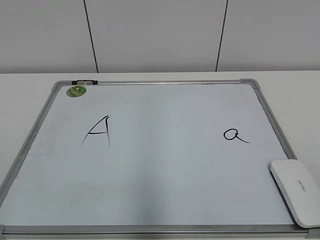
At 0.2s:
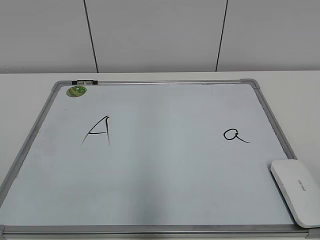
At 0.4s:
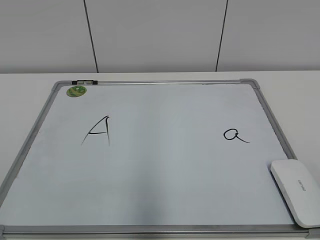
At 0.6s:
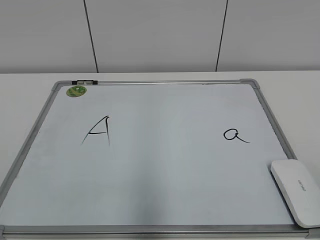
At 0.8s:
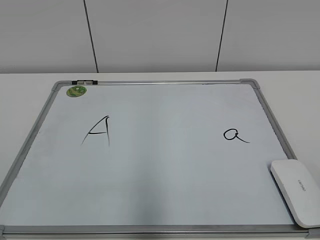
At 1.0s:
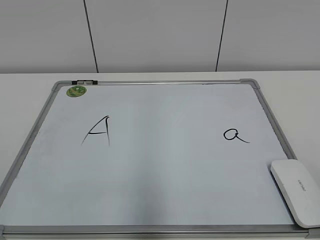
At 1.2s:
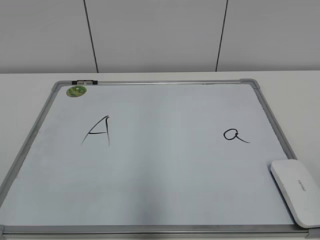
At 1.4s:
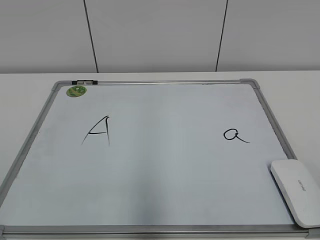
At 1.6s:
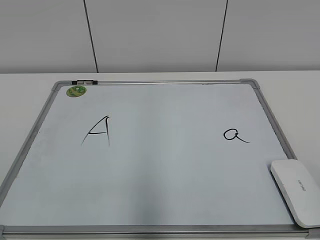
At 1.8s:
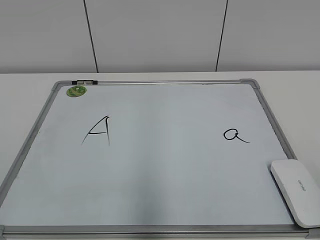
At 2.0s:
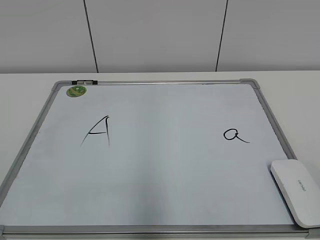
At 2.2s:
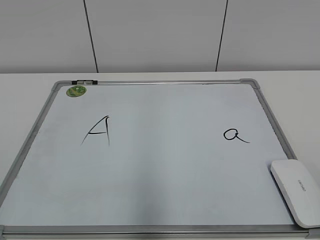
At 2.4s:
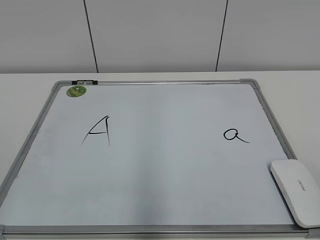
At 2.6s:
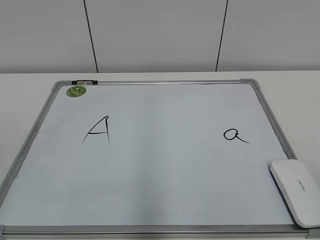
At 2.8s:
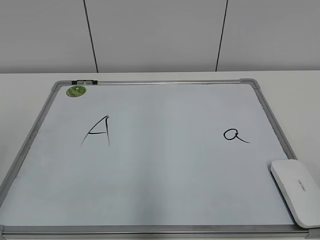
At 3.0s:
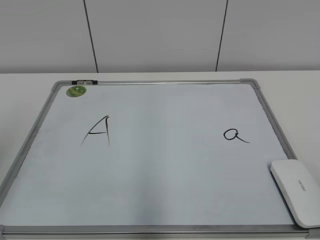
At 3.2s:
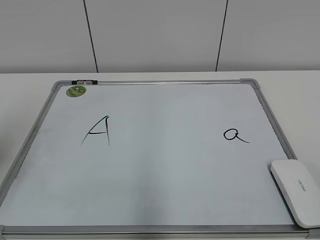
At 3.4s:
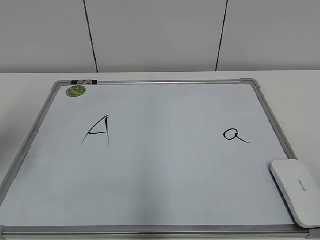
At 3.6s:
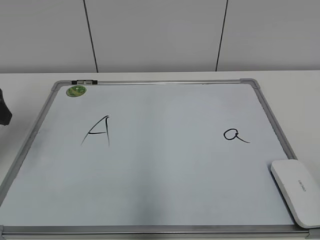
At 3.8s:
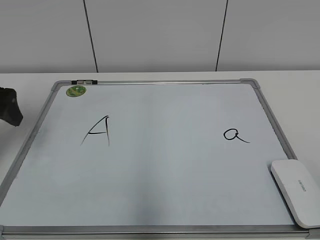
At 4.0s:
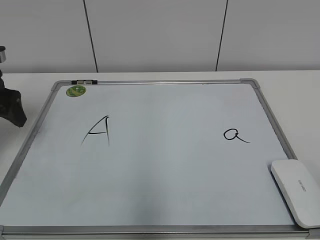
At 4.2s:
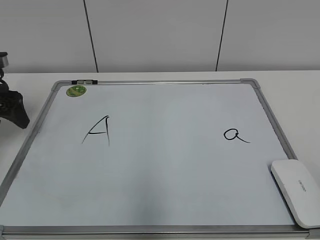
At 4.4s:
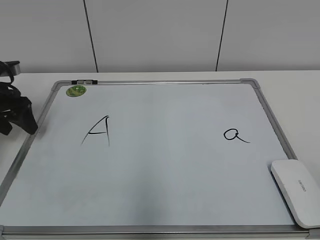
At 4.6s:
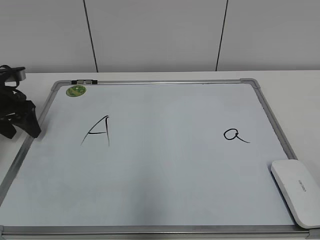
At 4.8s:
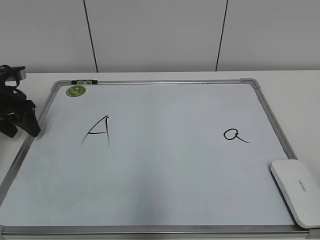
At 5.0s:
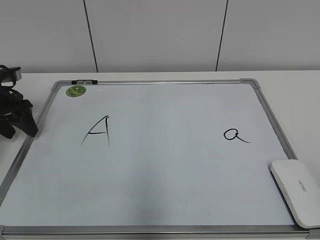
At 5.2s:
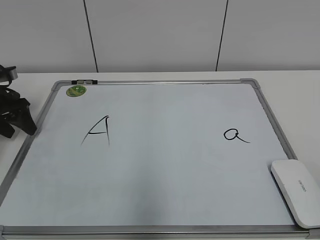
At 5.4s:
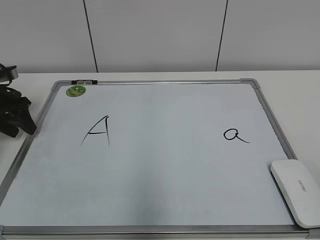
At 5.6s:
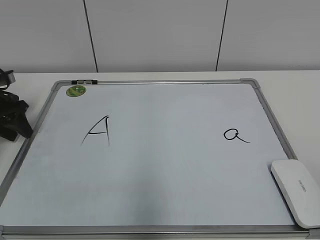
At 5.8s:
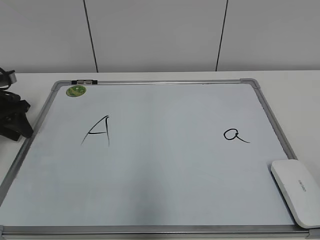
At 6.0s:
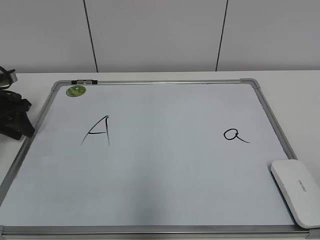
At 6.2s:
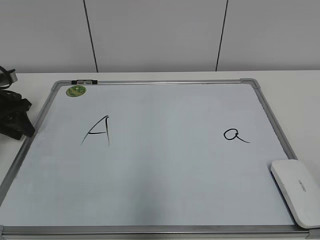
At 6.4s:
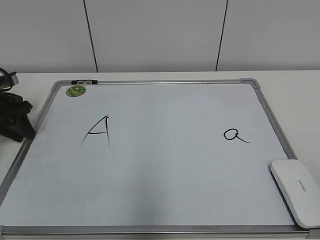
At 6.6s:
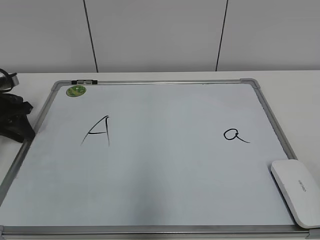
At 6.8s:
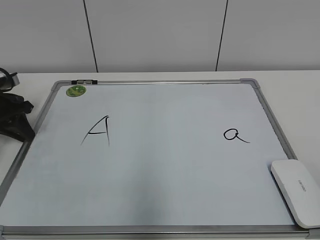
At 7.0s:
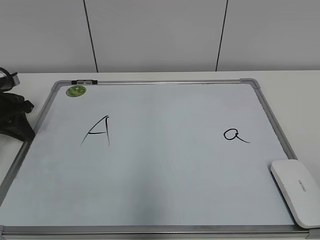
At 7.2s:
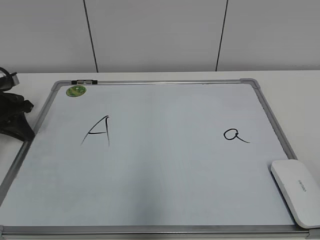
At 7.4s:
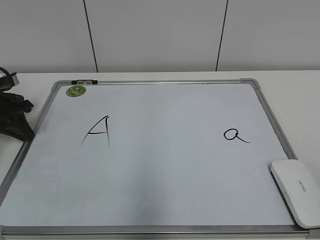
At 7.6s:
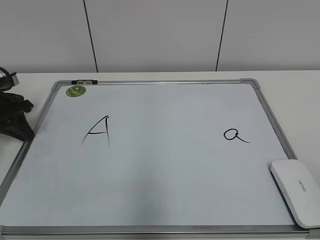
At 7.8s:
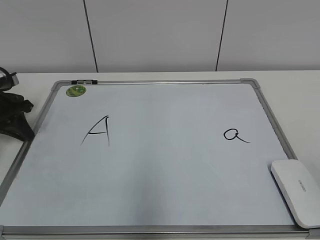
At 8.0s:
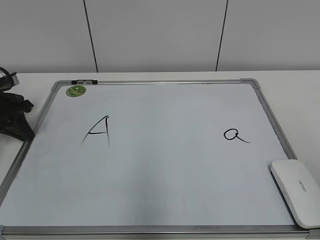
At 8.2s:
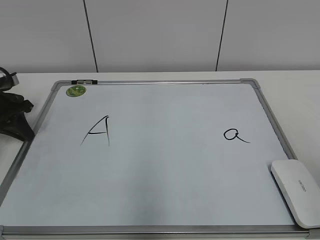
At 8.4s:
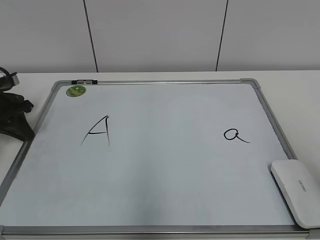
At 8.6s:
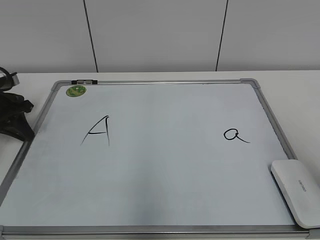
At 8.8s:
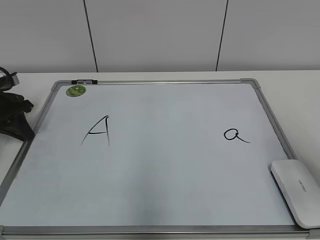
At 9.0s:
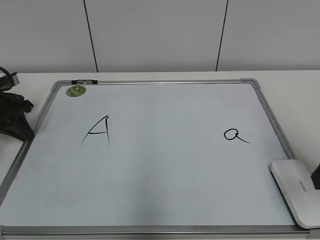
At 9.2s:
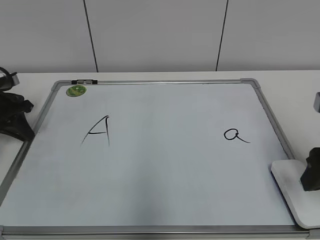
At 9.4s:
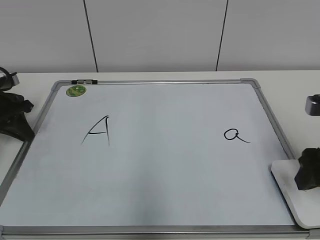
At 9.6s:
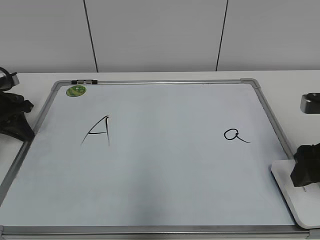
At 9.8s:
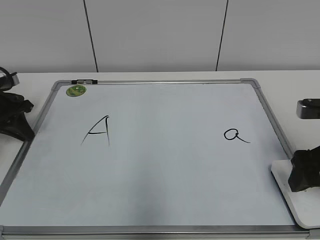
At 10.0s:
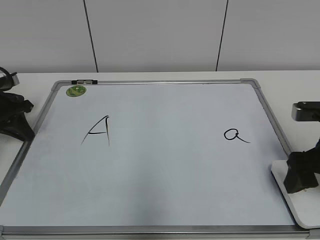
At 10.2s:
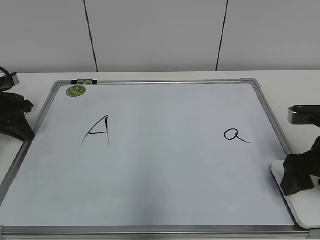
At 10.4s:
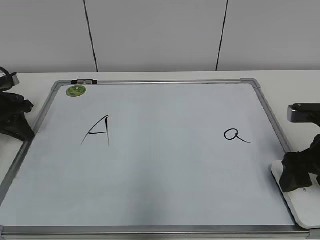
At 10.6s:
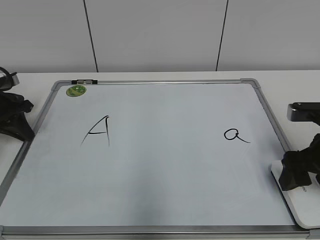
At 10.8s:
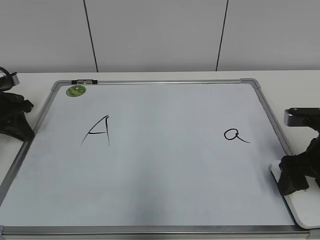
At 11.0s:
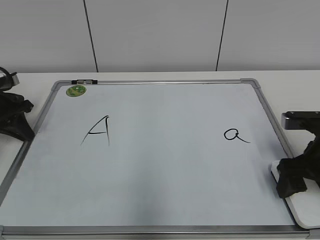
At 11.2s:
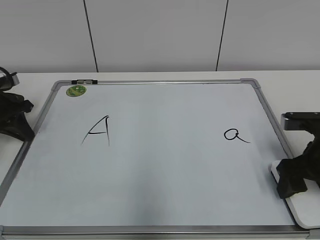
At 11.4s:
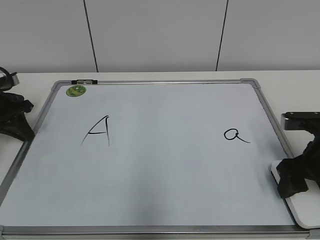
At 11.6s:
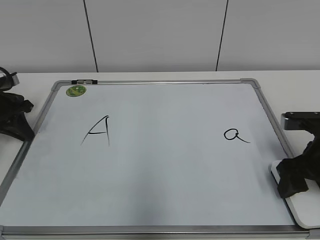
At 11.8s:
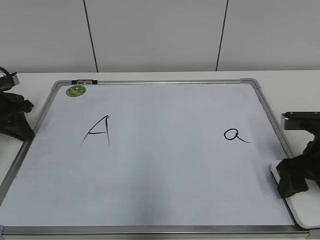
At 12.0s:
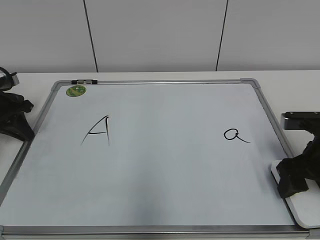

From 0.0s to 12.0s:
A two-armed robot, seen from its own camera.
Task of the whole recording: pick up the eraser on the blackboard and erase the letter "a".
Step, from 0.0s to 6.6s: Hold the drawing board steady with your left hand.
From 3.0s to 4.4s: The left gripper moves forward and downward, about 30 cm.
From 4.4s to 6.0s: The left gripper closes its fingers.
From 7.6s to 9.0s: The right gripper is displaced forward by roughly 20 cm.
From 9.0s to 10.4s: The right gripper moves downward and forward, about 10 cm, and opens.
From 10.4s to 12.0s: The right gripper closes.

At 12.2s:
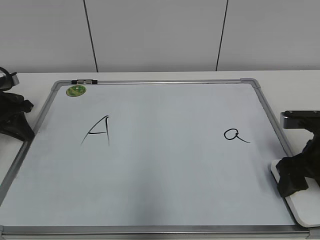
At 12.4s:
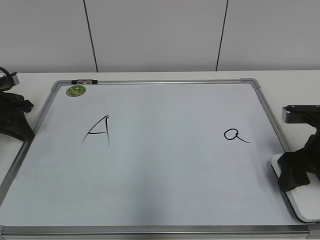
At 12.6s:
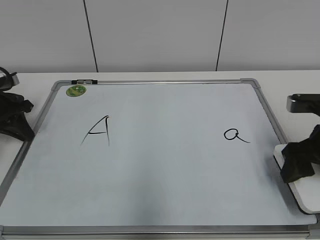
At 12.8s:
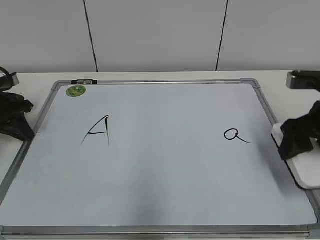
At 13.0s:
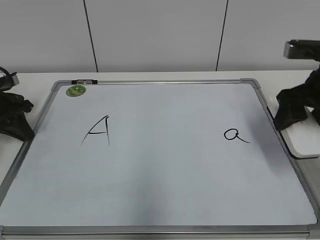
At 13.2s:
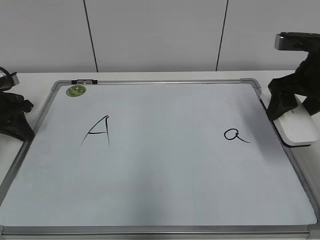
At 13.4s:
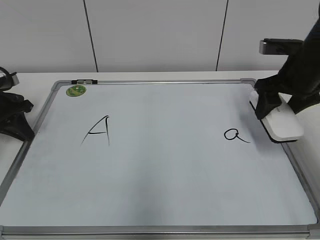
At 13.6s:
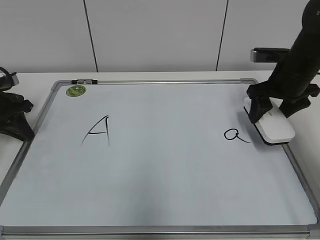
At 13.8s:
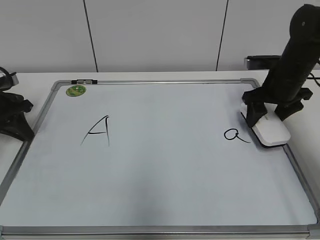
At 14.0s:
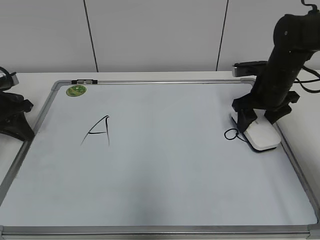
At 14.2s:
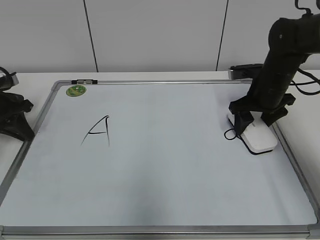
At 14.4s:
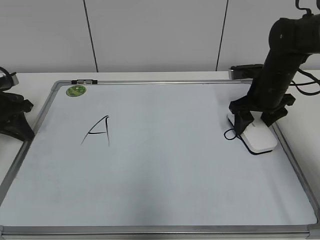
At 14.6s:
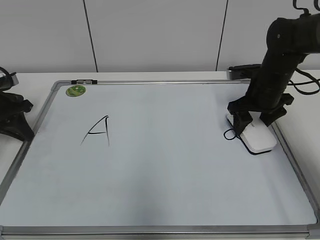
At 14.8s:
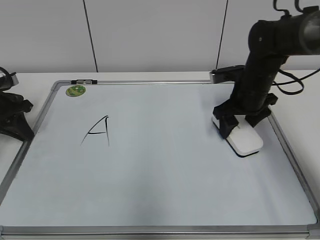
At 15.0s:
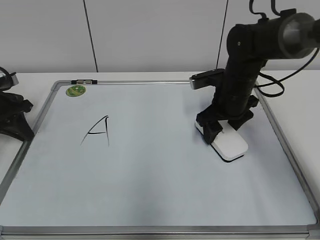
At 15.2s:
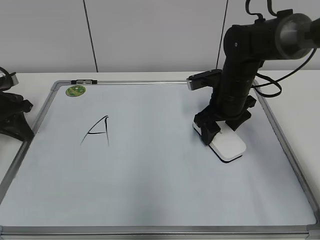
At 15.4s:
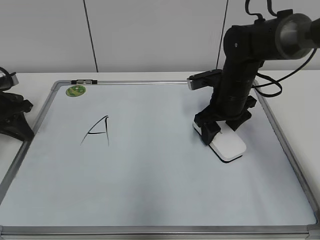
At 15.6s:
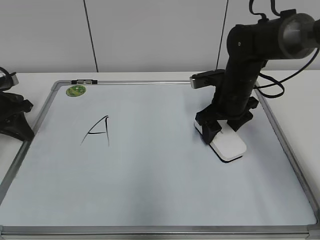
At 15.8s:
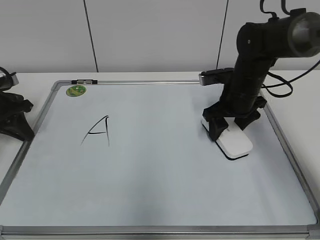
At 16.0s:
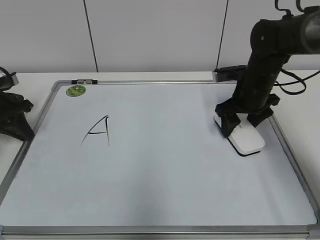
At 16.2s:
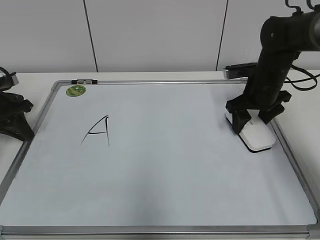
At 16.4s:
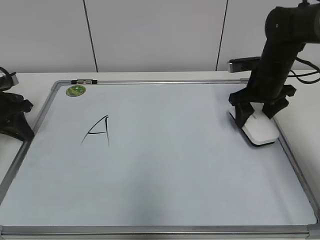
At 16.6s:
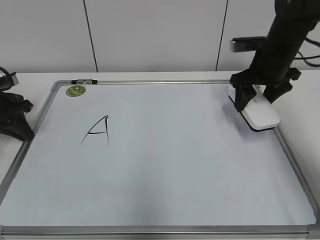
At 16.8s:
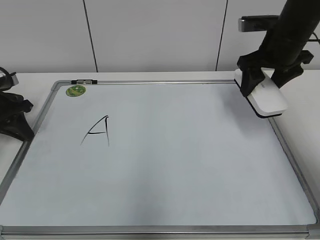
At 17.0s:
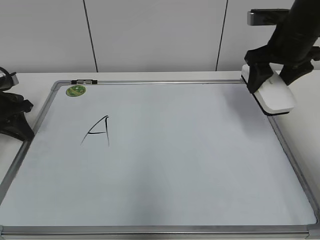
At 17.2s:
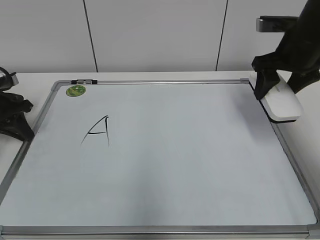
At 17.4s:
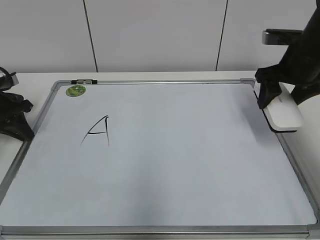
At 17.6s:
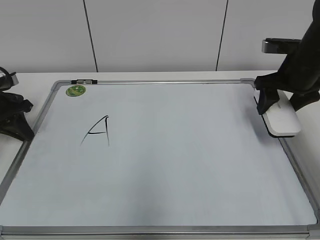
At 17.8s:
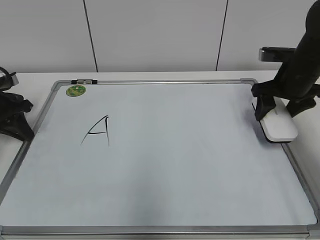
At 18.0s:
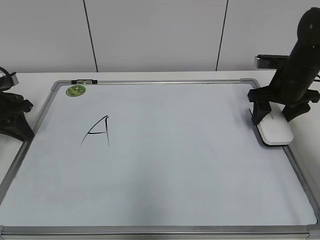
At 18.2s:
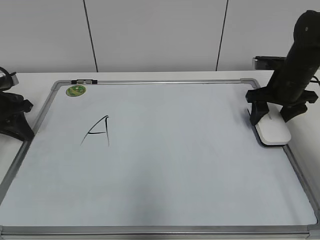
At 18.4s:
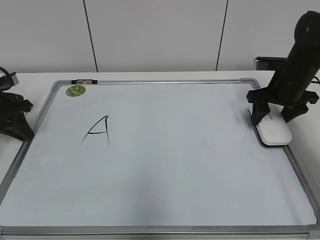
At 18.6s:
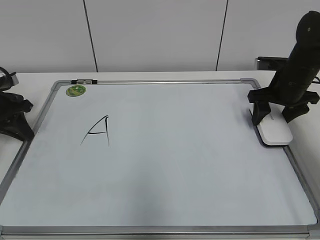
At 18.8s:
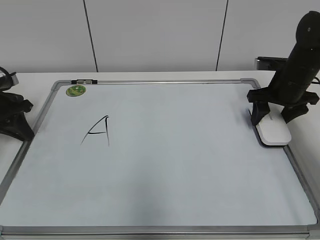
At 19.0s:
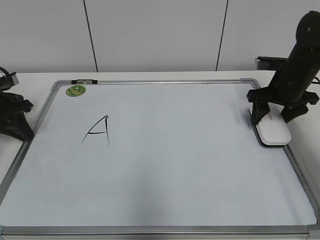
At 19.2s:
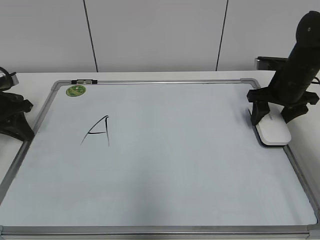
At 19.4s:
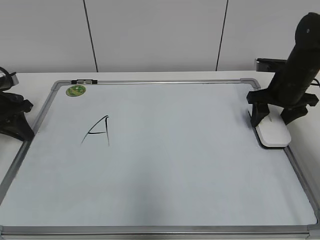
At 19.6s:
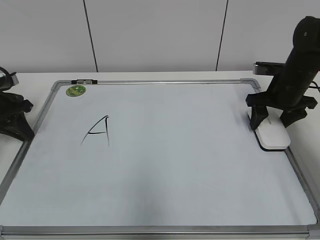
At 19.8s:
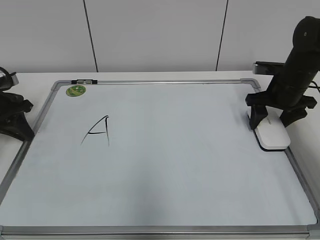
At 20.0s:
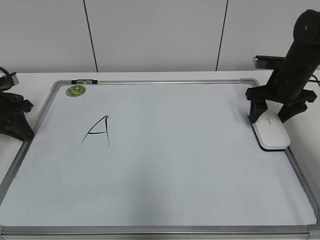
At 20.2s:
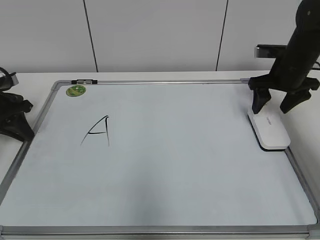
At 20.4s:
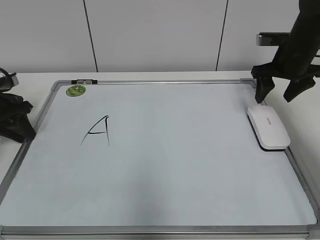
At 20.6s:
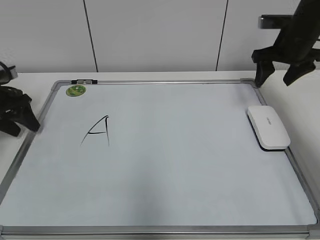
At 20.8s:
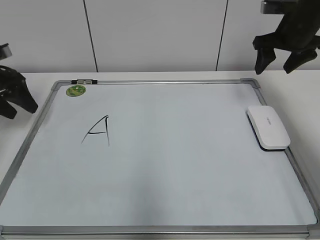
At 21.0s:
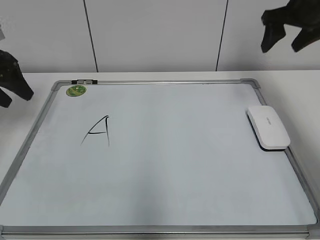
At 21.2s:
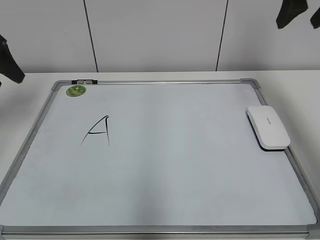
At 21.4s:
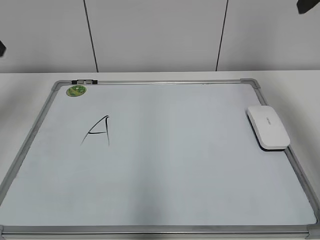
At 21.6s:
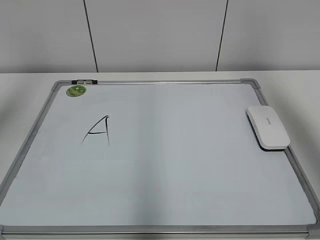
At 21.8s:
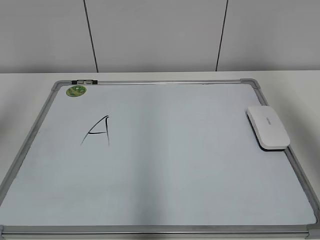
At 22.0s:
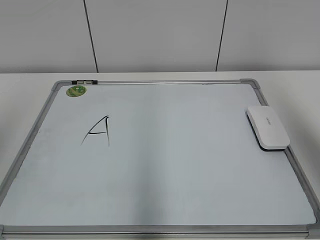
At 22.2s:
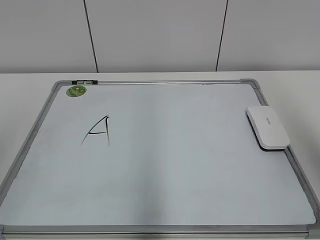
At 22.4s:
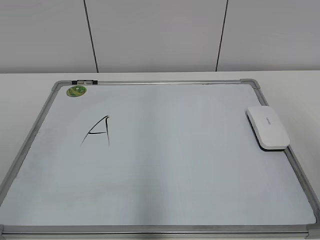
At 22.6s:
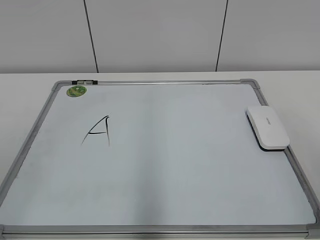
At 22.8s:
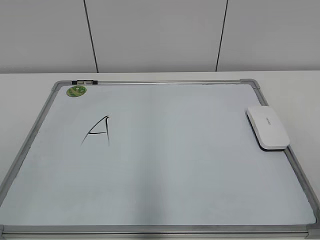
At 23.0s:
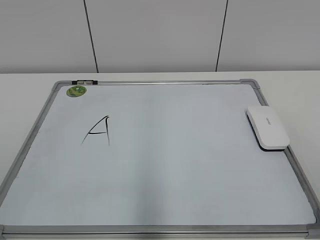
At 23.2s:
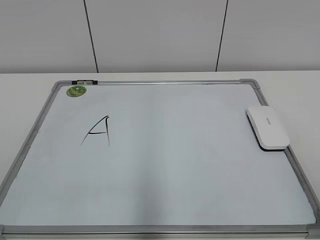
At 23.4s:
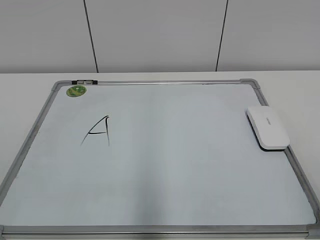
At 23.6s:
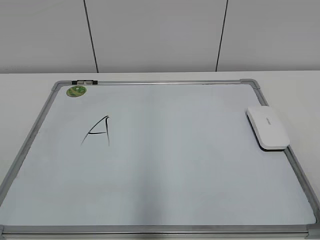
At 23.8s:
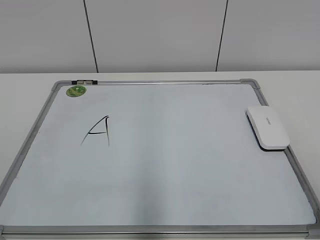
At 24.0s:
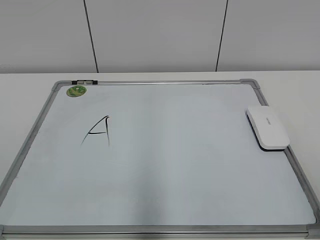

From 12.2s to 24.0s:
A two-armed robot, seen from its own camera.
Task of the whole recording: pick up the eraser on the blackboard and erase the letter "a".
Step, from 12.2s to 16.2s: Erase the letter a with your right hand.
Step, from 16.4s to 19.8s: Put down the eraser with your right hand.
From 12.2s to 13.6s: The right gripper moves forward, approximately 15 cm.
From 13.6s to 15.2s: The right gripper heads to the left and downward, covering about 10 cm.
From 15.2s to 16.6s: The right gripper is displaced to the right and upward by roughly 10 cm.
From 16.6s to 18.2s: The right gripper ends up approximately 5 cm from where it was.
From 18.2s to 19.6s: The two grippers keep their place.
From 19.6s to 21.0s: The left gripper moves upward, roughly 10 cm, and opens up. Meanwhile the right gripper moves upward, about 15 cm, and opens.
From 21.0s to 22.6s: The two grippers go about 35 cm backward.
